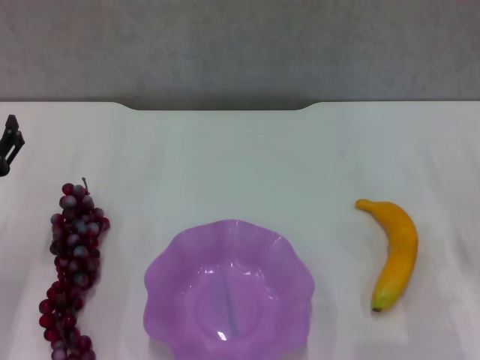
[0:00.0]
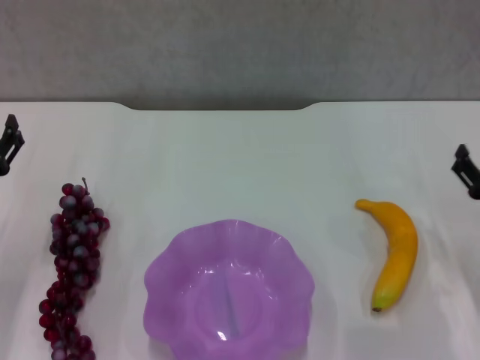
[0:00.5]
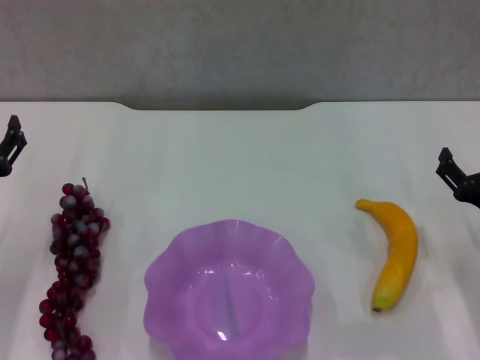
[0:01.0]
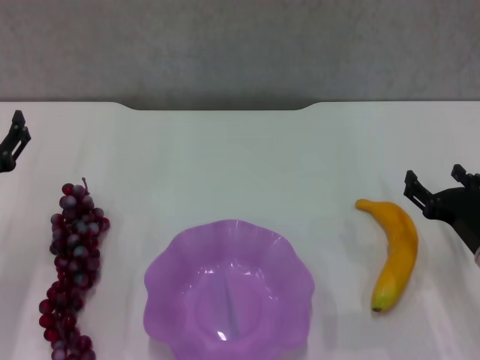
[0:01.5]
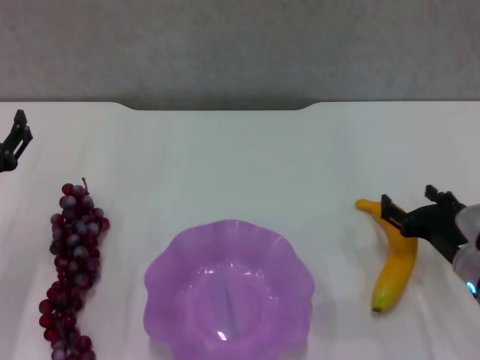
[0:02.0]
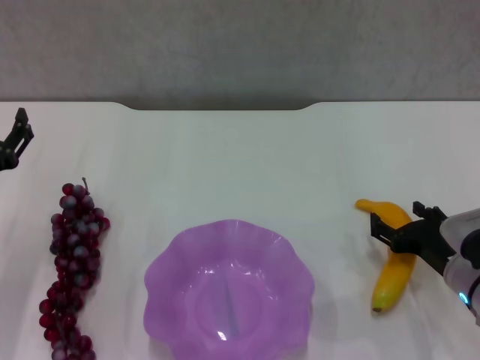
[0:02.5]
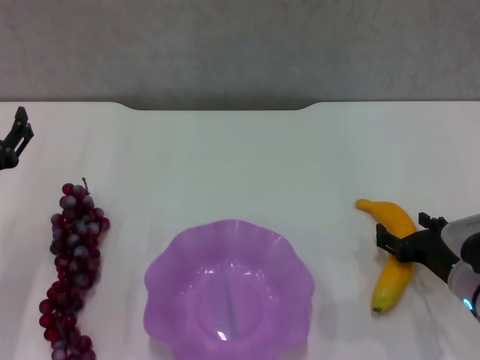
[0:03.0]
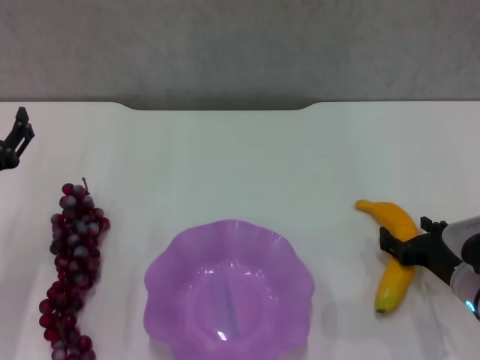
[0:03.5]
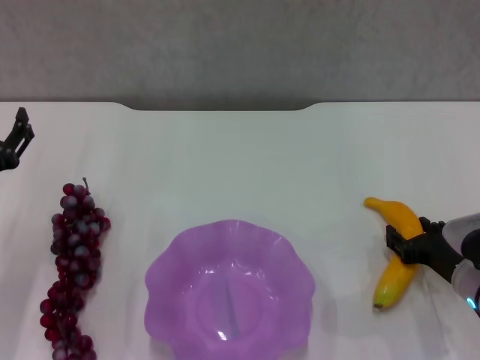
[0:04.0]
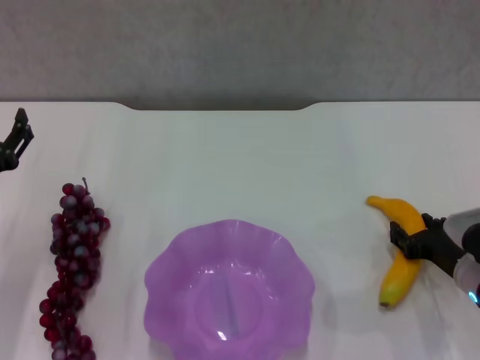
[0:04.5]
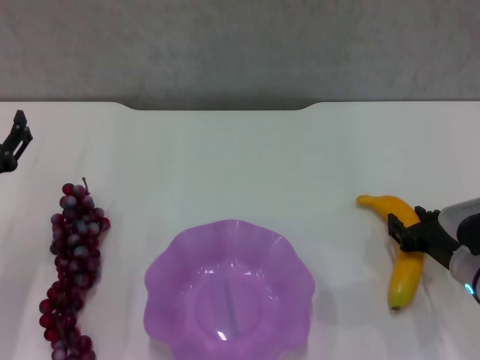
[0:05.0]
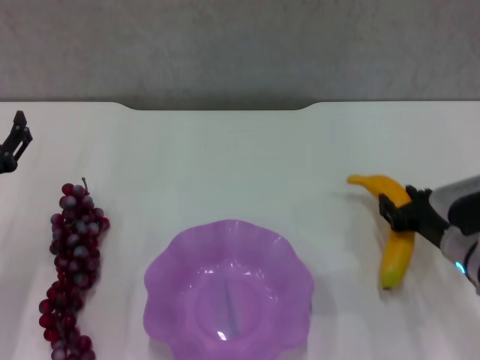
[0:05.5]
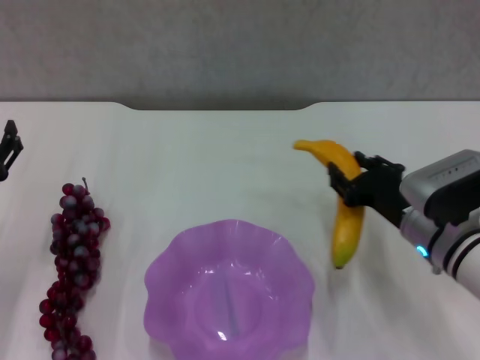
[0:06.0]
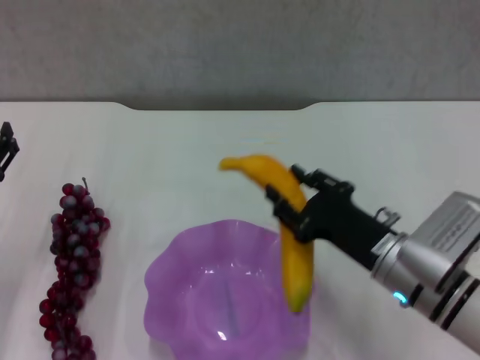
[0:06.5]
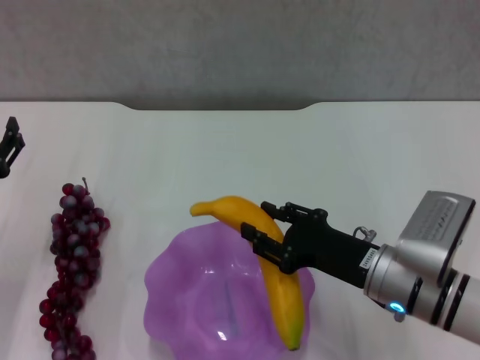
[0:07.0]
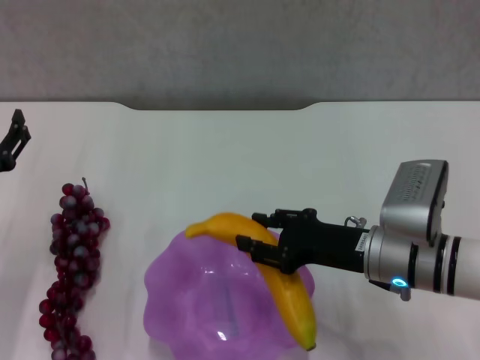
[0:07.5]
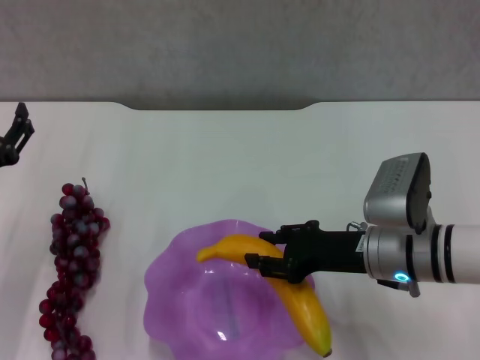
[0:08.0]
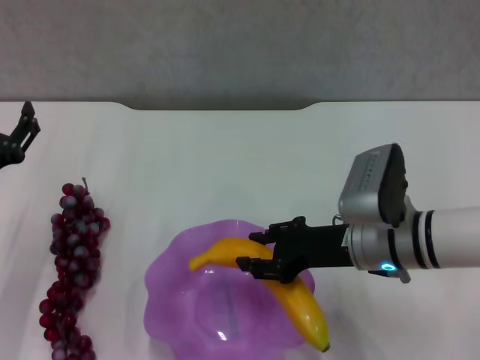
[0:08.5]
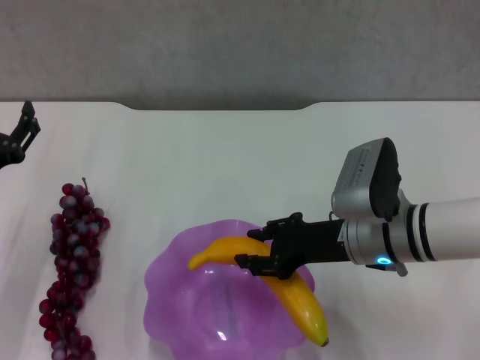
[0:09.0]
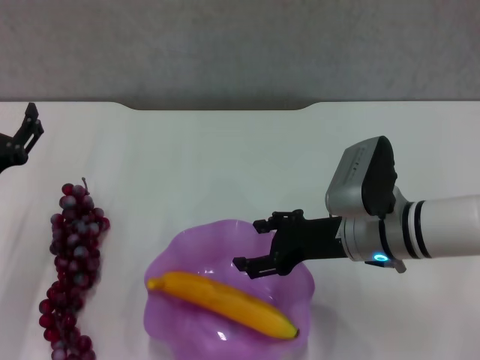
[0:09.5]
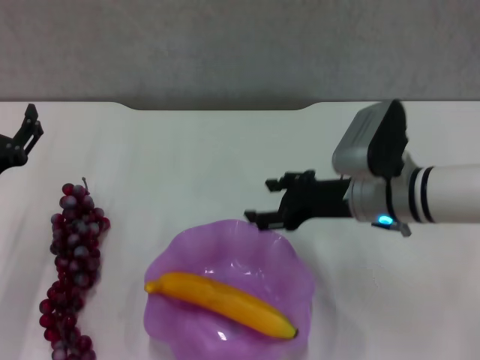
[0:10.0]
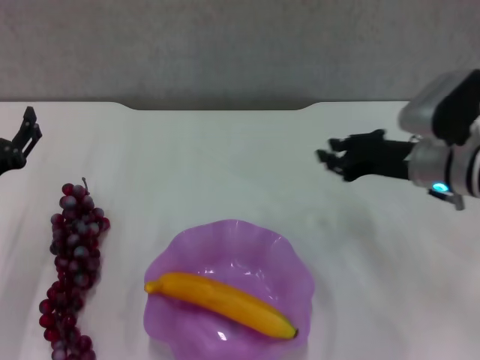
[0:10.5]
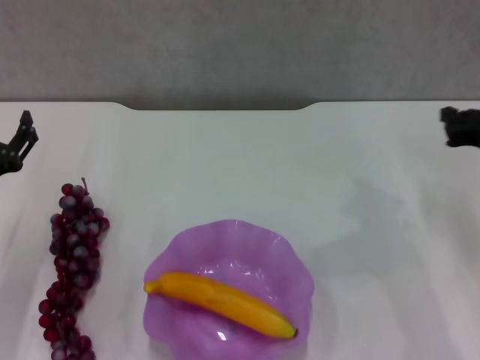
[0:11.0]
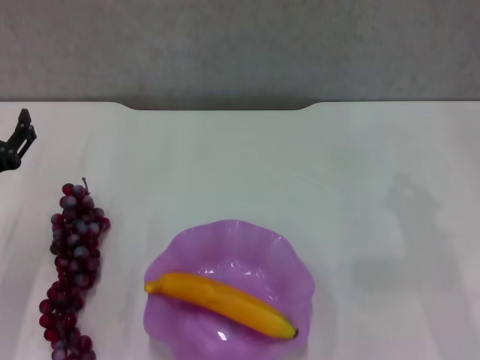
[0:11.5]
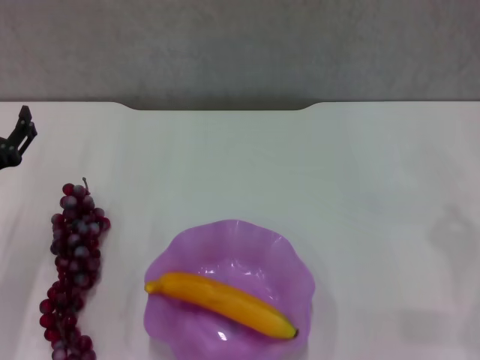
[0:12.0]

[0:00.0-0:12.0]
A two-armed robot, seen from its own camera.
Step, 0:00.0 to 0:04.5: Grasp the banana with right gripper.
Step, 0:05.0 to 0:09.0: Place the banana in the purple plate with right gripper.
0:00.0 to 0:02.0: The right gripper travels to the left by some 5 cm.
0:02.0 to 0:04.0: The grippers stay close to where they were, moving slightly.
0:04.0 to 0:06.0: The right gripper goes roughly 5 cm to the left.
0:08.0 to 0:10.0: The right gripper shifts about 5 cm forward, and opens up.
0:10.0 to 0:12.0: The right gripper travels to the right by some 25 cm, and closes its fingers.

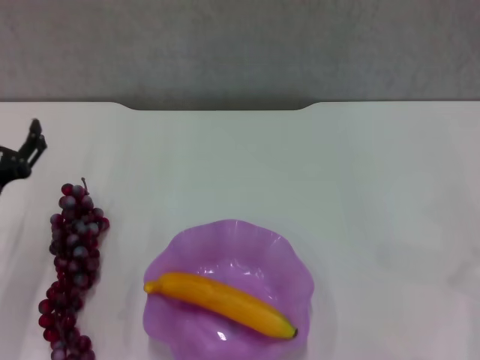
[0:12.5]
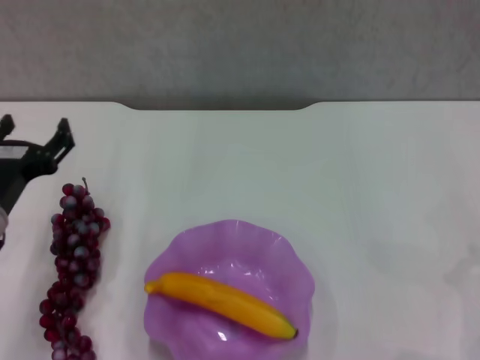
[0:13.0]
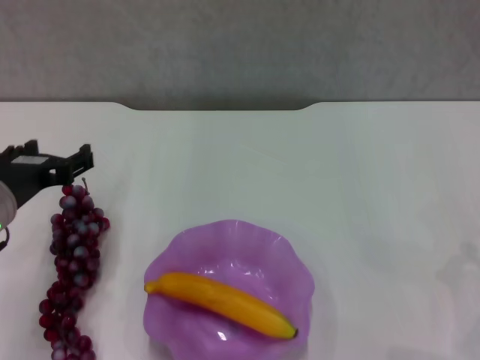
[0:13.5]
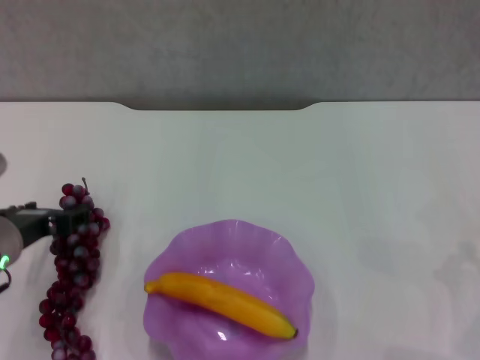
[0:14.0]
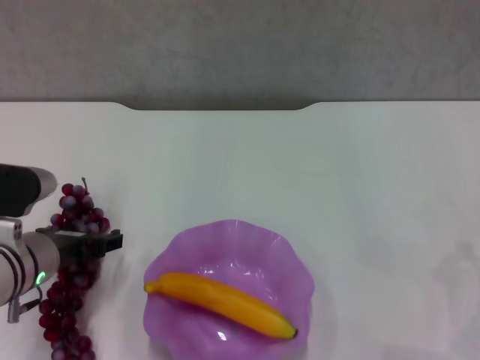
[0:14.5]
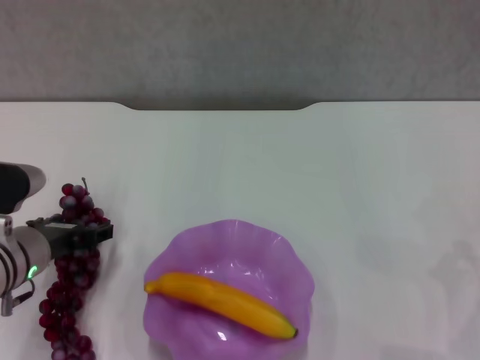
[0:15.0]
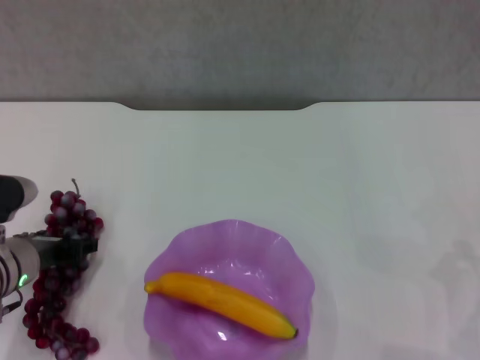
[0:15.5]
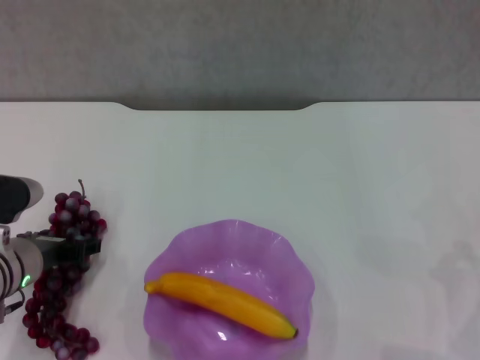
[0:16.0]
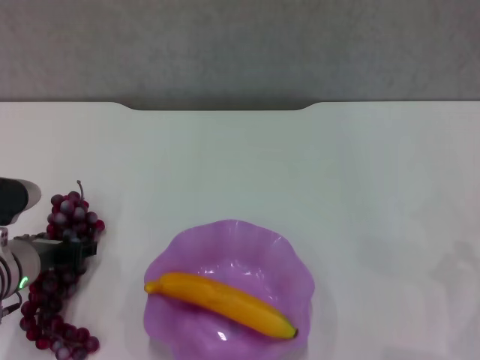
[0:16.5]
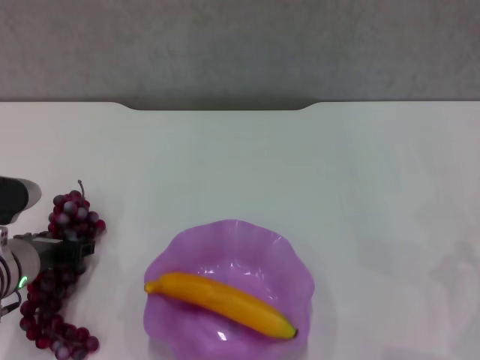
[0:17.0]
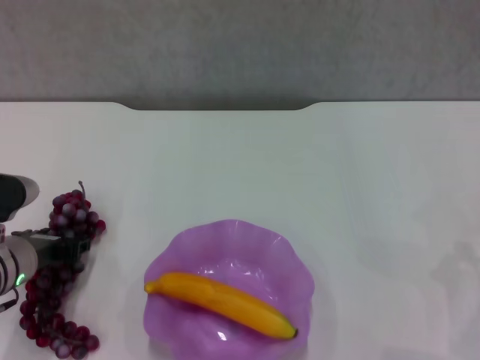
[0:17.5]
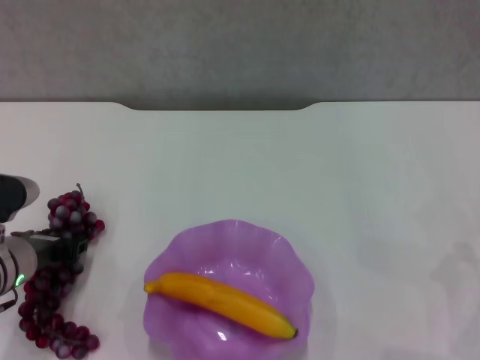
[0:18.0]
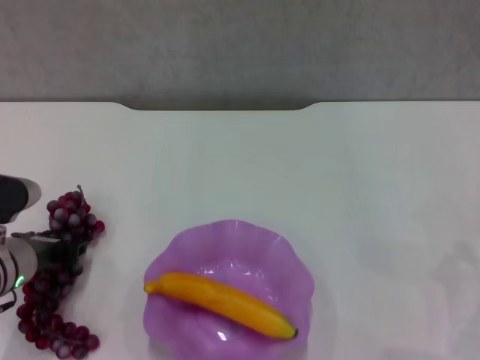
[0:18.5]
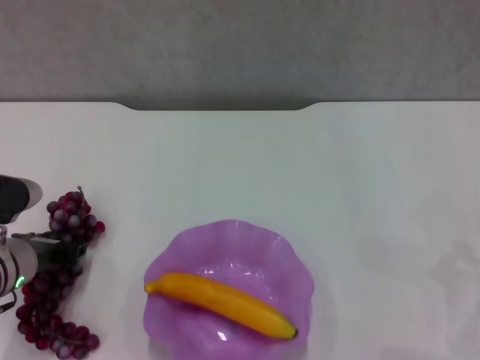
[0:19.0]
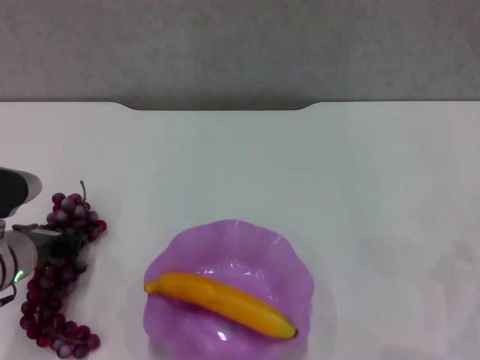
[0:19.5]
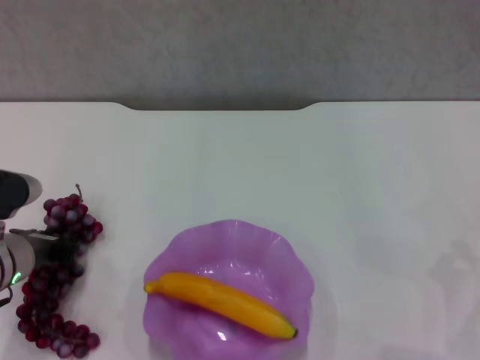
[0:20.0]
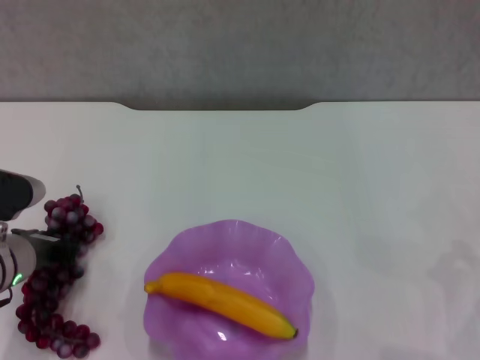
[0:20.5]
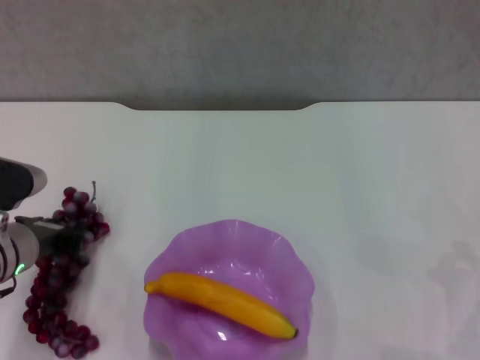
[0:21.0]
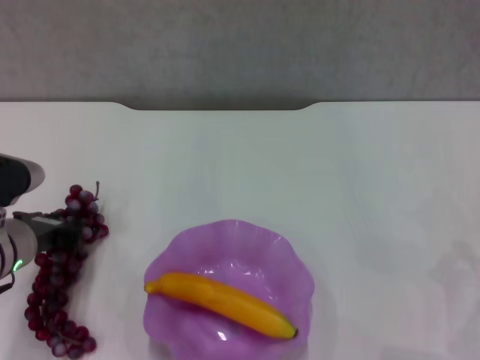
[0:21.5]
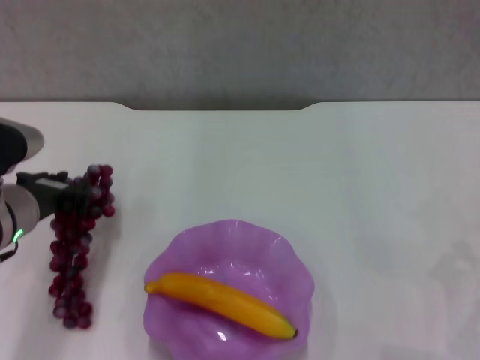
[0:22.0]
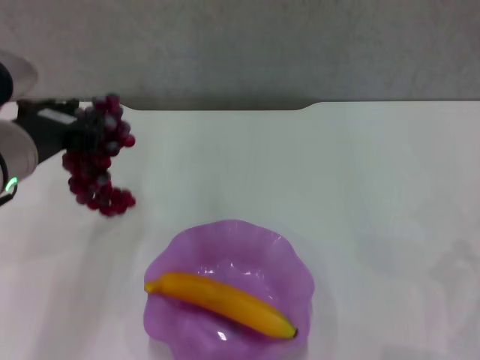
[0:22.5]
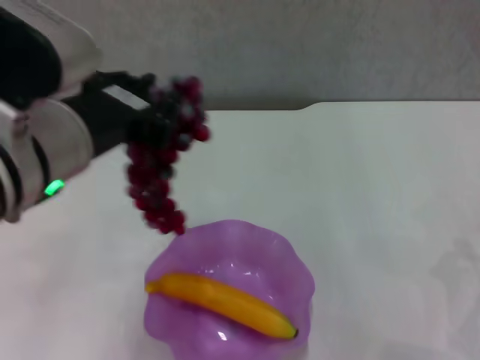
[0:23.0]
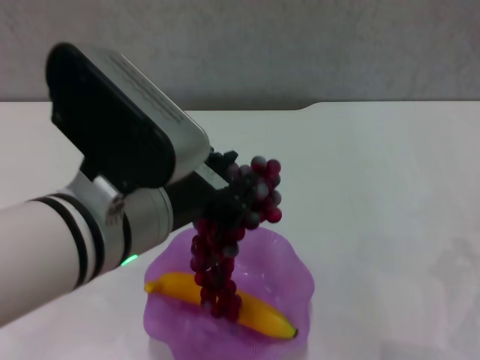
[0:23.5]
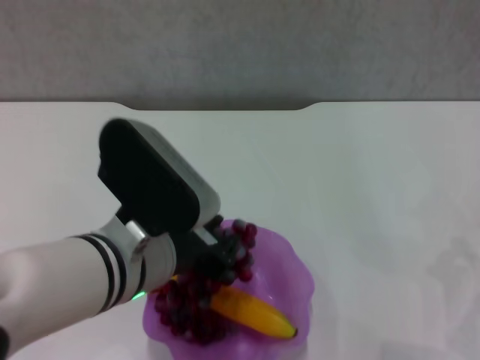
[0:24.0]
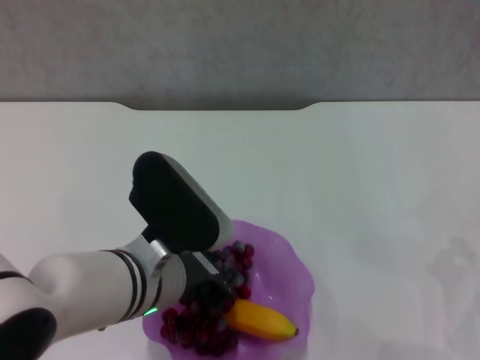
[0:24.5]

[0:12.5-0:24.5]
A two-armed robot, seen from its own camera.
Step, 0:12.5 to 0:18.5: Grasp the grape with left gripper.
0:12.5 to 0:14.5: The left gripper travels to the right by about 5 cm, and reaches approximately 10 cm upward, then returns.
0:14.5 to 0:16.5: The grippers make only small movements.
0:16.5 to 0:18.5: The left gripper closes.
0:18.5 to 0:20.5: Both grippers stay put.
0:20.5 to 0:22.5: The left gripper heads upward, covering some 15 cm.
0:22.5 to 0:24.5: The left gripper heads to the right and downward, covering some 15 cm.

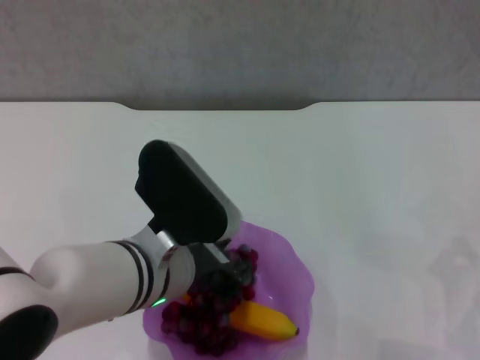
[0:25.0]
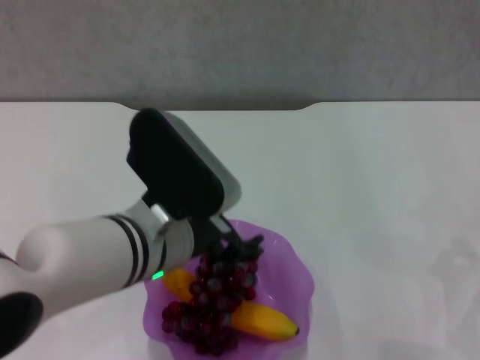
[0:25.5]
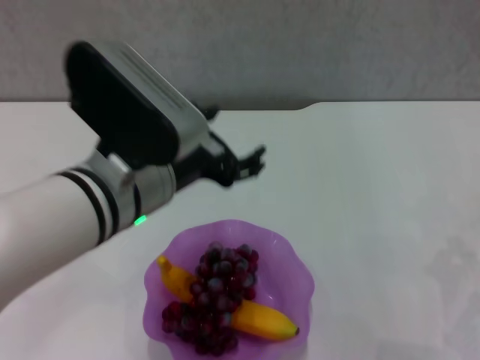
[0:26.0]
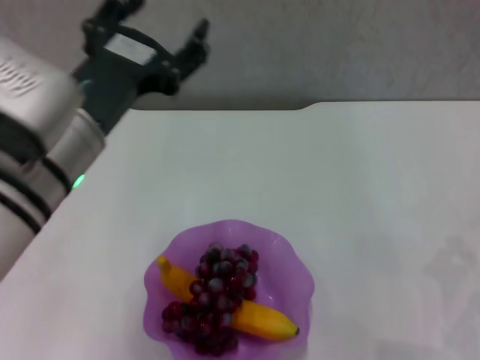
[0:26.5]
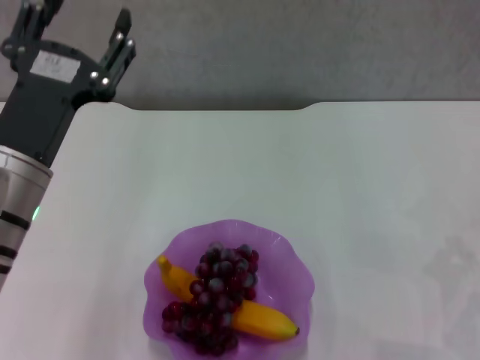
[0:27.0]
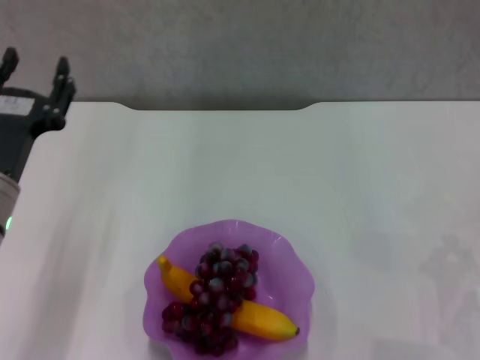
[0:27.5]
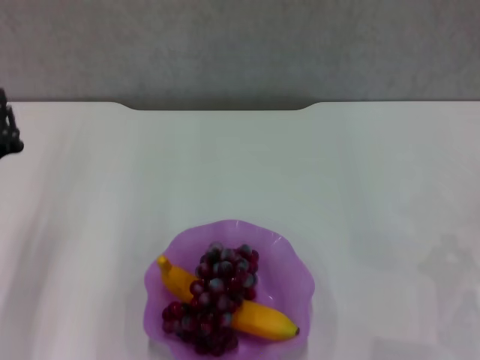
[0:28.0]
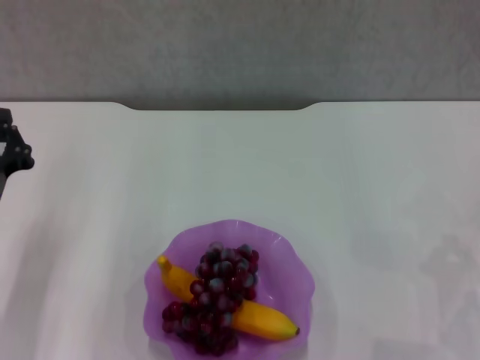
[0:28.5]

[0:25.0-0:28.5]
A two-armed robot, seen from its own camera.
0:25.0 to 0:27.0: The left gripper heads to the left, covering roughly 10 cm, and opens.
0:27.0 to 0:28.5: The left gripper travels downward and to the left by roughly 15 cm, and closes.
